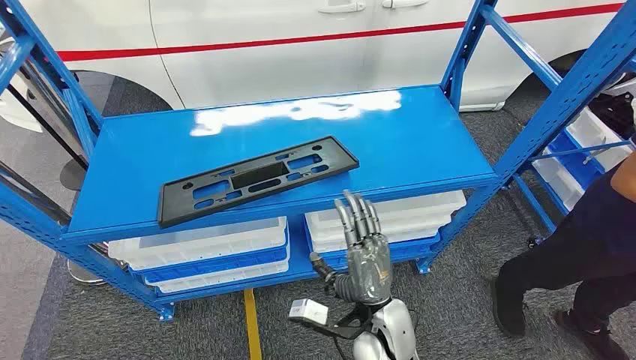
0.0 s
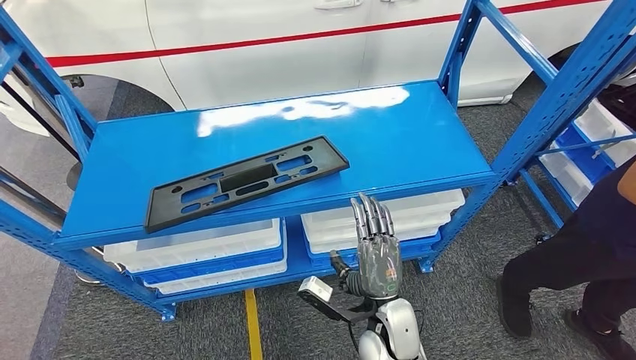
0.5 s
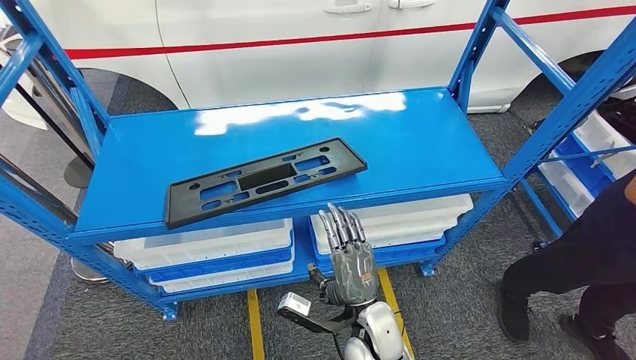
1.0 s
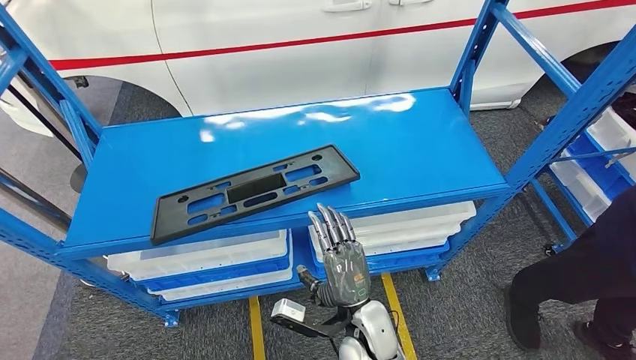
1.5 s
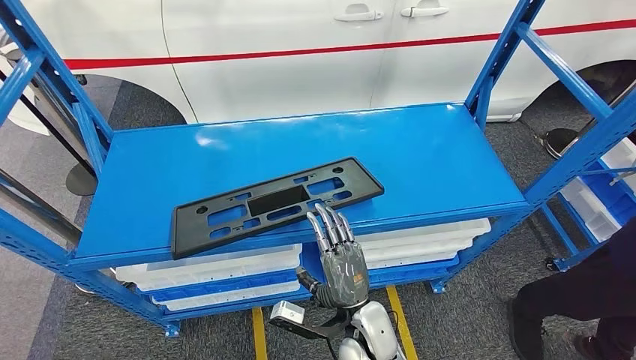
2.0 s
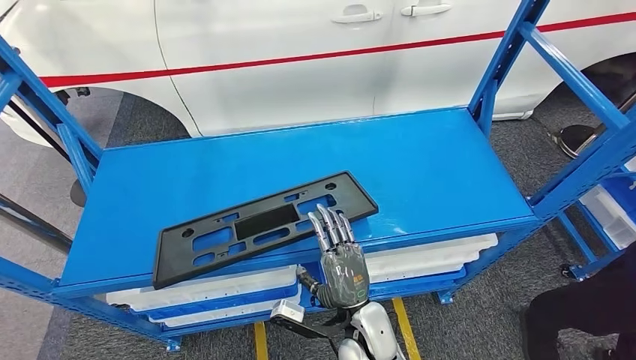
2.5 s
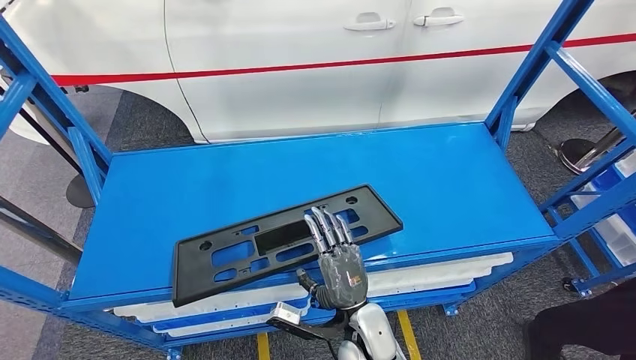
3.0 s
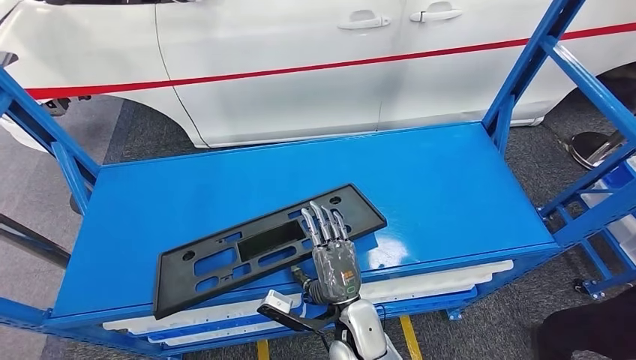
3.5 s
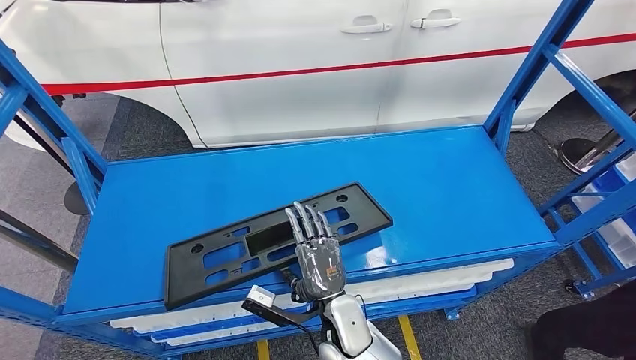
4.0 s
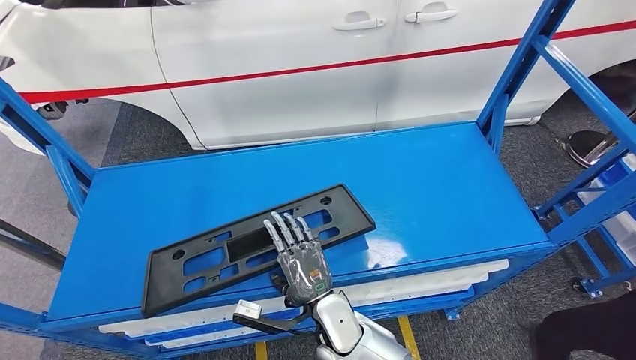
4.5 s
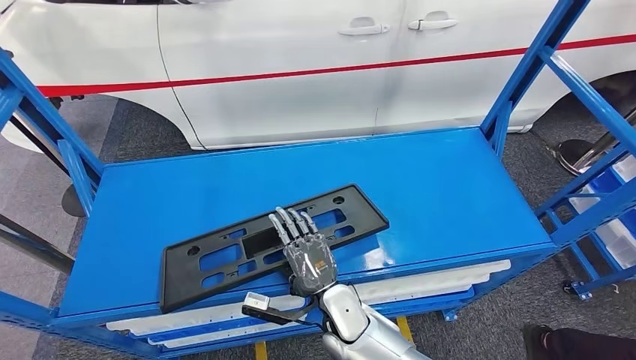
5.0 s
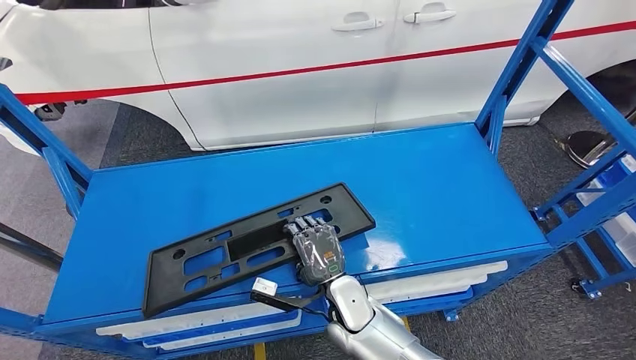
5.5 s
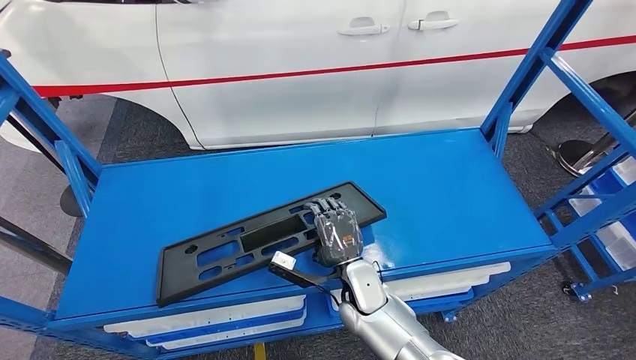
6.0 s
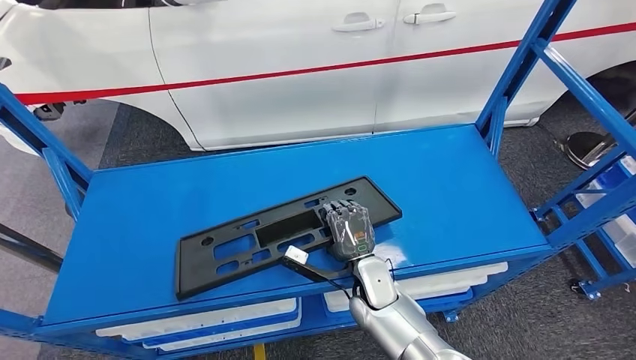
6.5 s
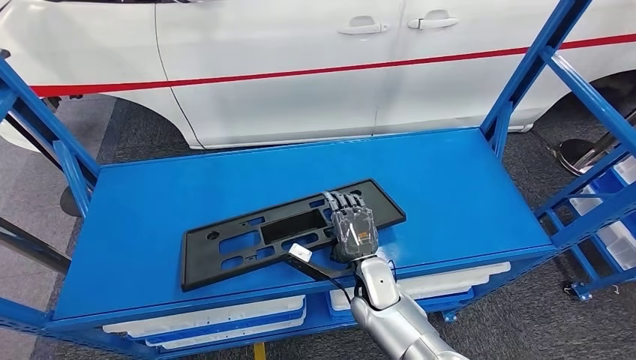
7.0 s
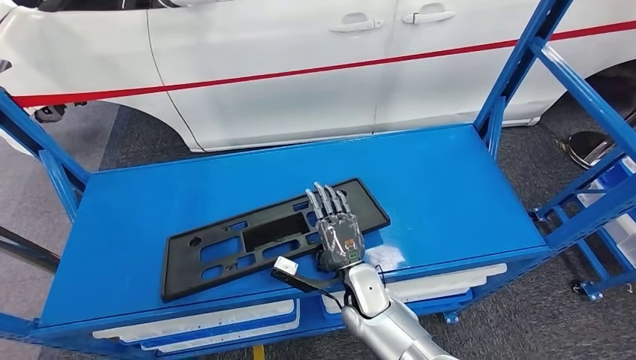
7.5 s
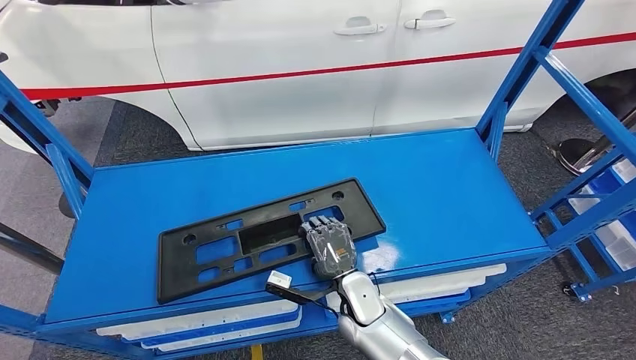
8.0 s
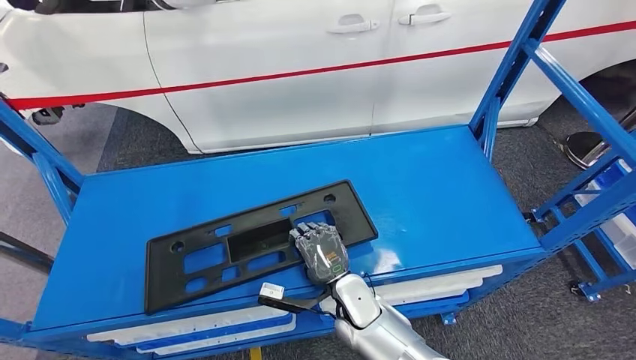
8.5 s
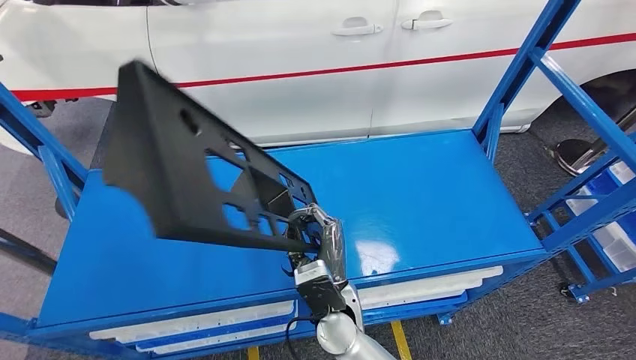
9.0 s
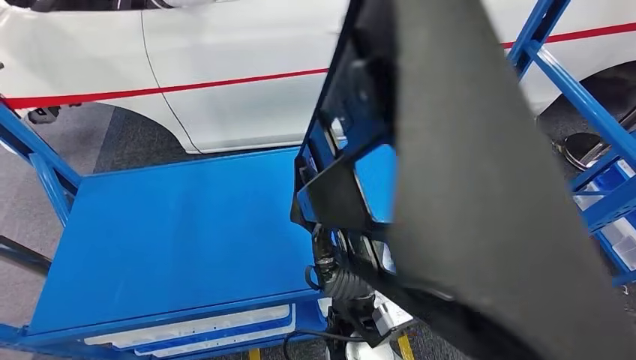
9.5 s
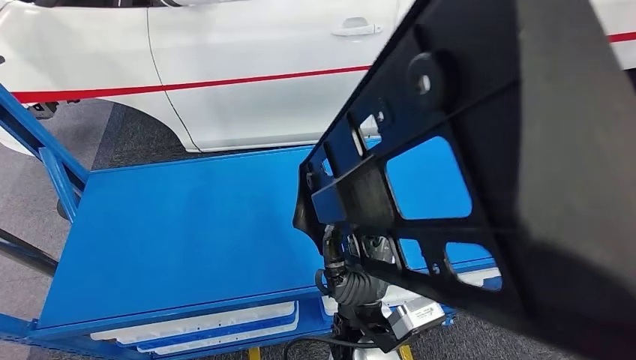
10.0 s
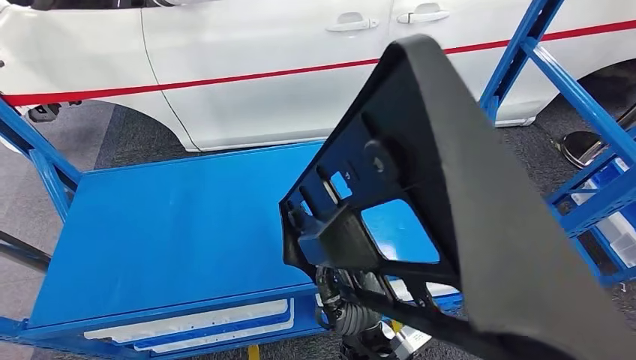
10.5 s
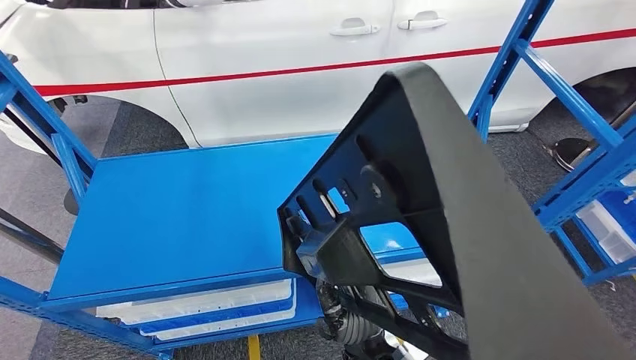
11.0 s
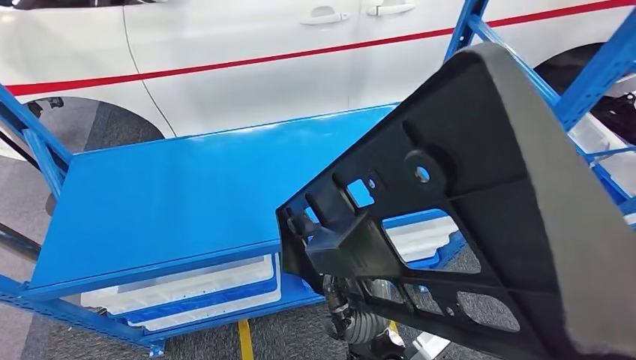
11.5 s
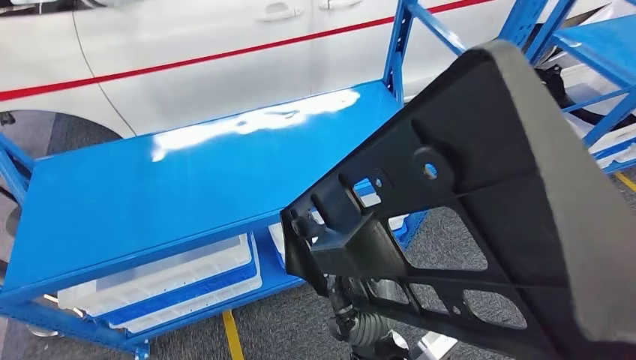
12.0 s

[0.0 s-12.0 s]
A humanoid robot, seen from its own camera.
6.0 to 8.0 s: There are only small adjustments of the hands.

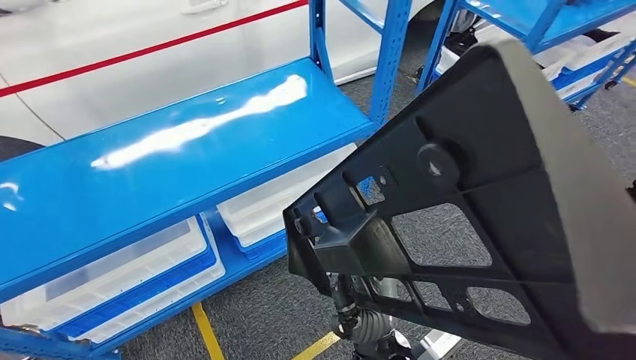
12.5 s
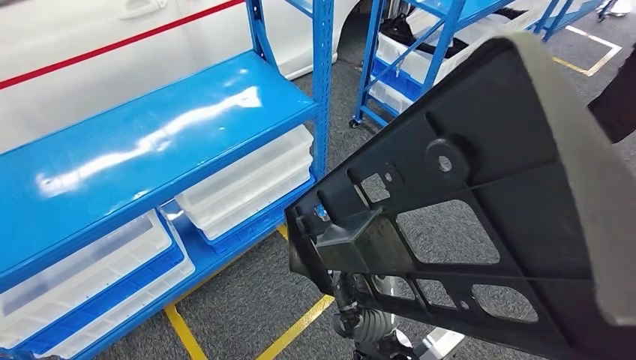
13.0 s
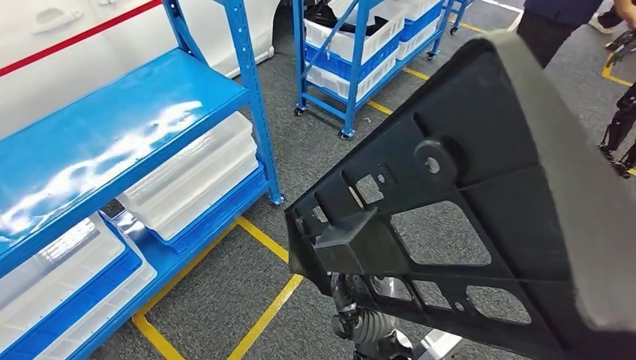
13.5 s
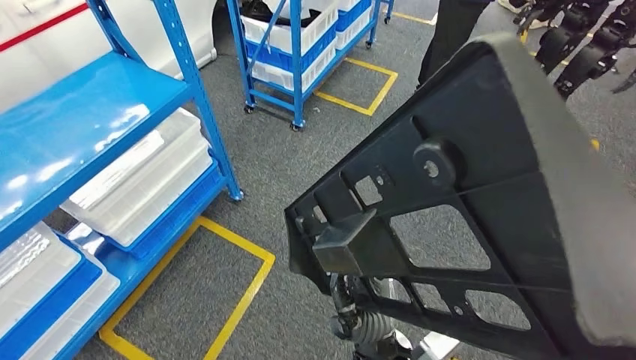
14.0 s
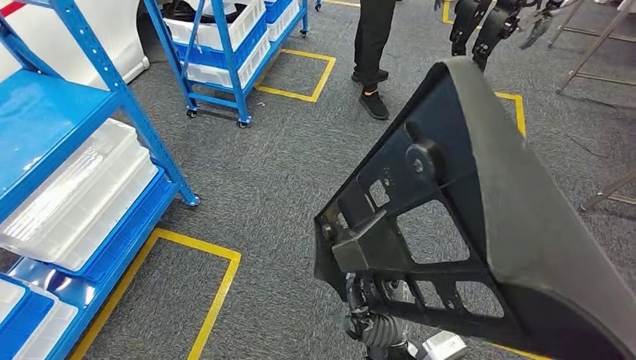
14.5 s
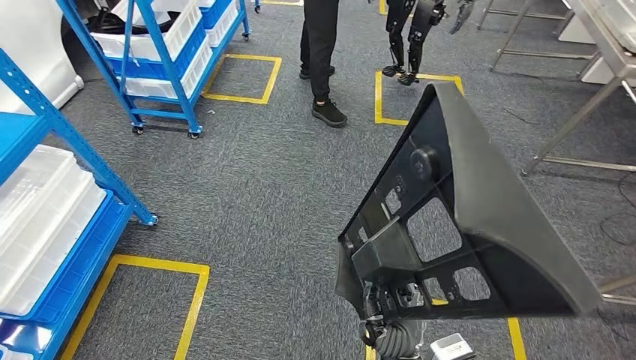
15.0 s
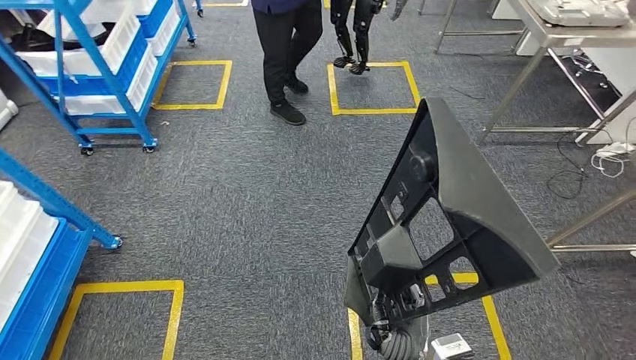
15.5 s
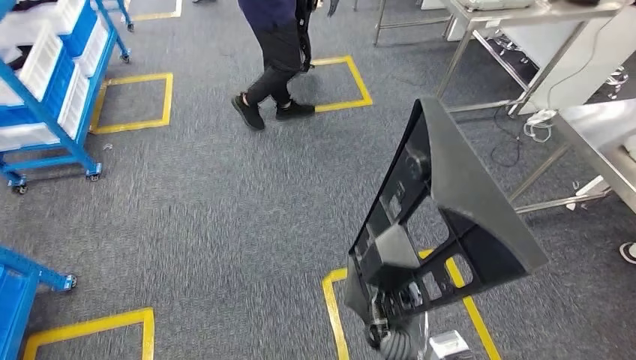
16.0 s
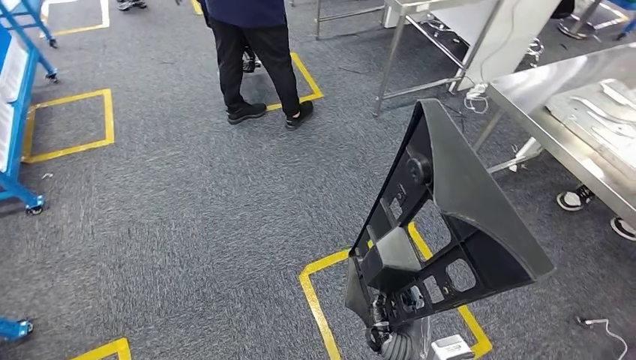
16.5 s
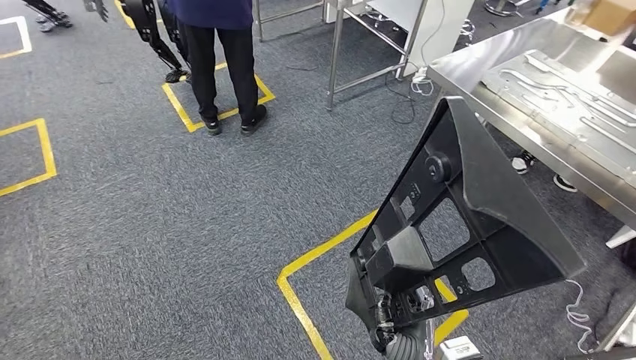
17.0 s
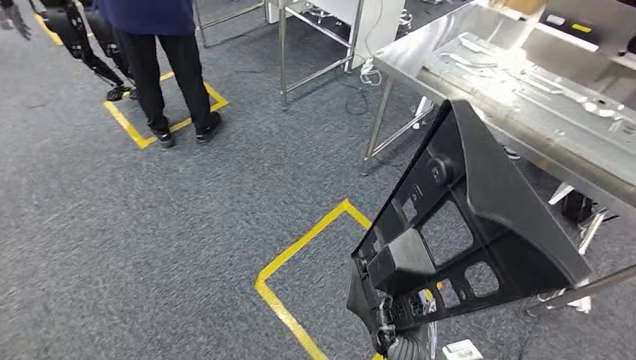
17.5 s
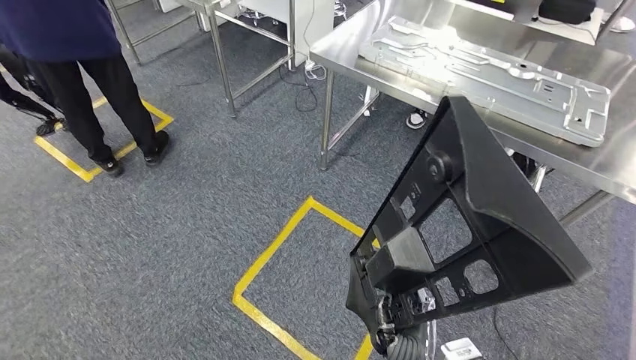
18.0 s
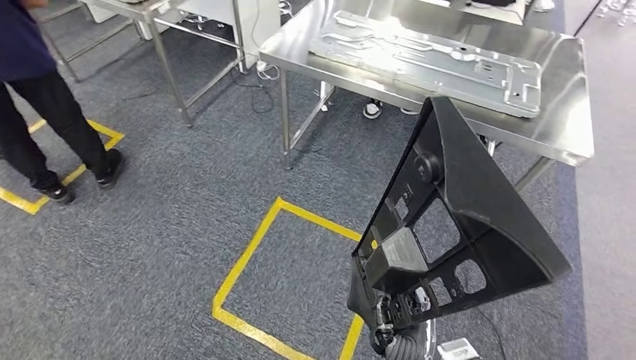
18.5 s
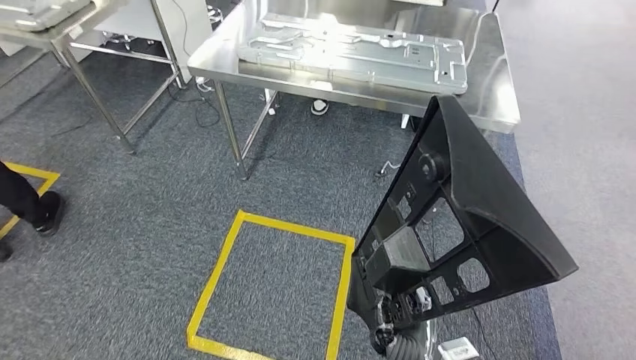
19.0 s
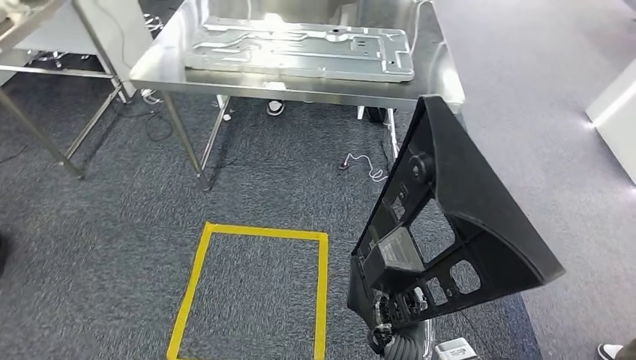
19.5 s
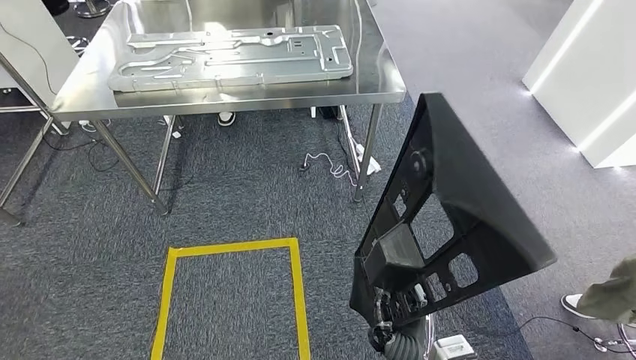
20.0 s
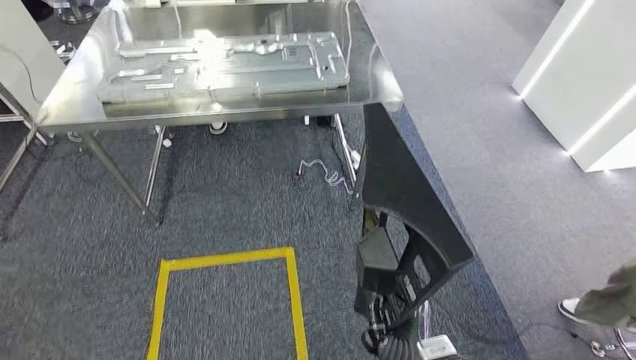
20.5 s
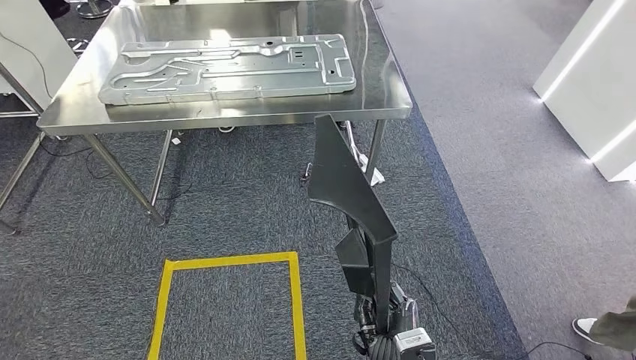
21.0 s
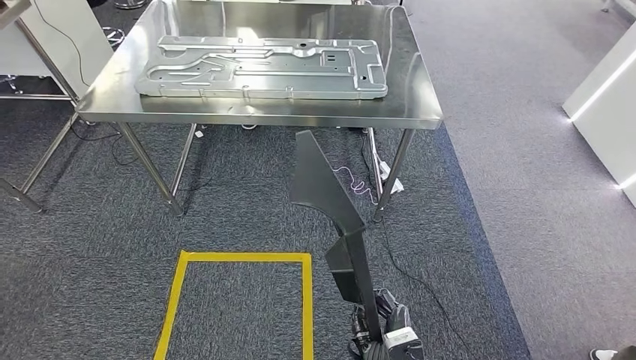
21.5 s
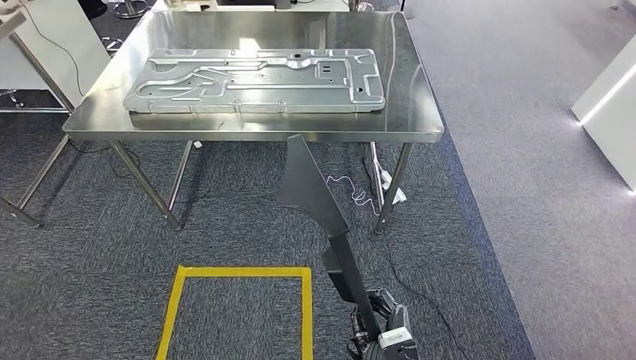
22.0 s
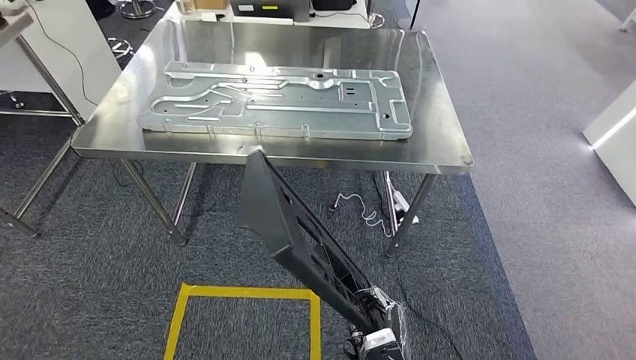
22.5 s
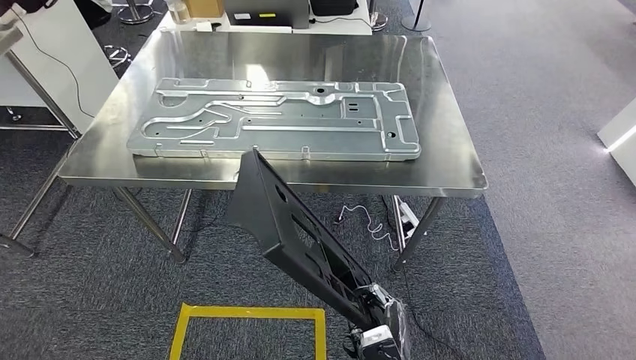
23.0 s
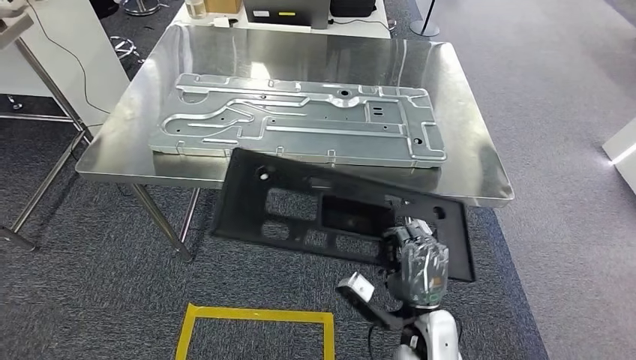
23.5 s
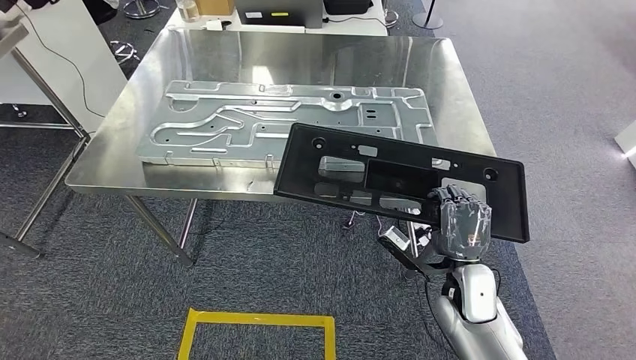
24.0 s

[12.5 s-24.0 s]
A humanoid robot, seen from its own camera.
Step, 13.0 to 23.5 s: Move the large material to the workbench.
